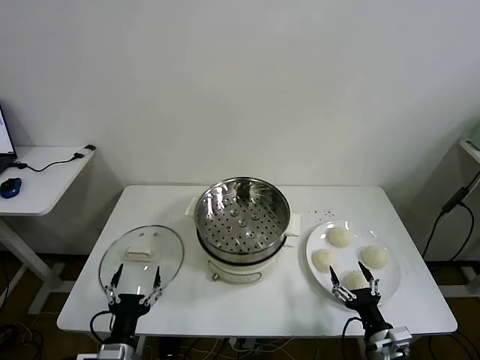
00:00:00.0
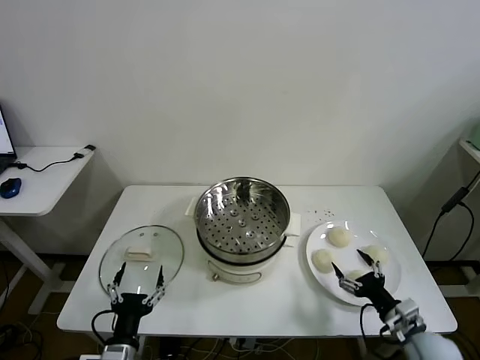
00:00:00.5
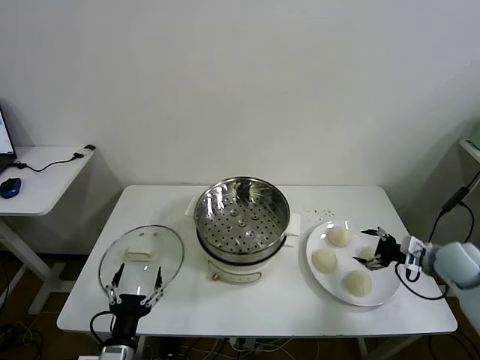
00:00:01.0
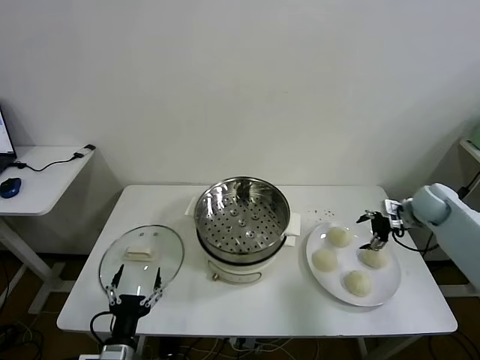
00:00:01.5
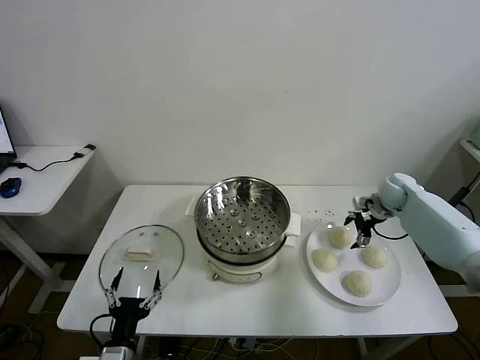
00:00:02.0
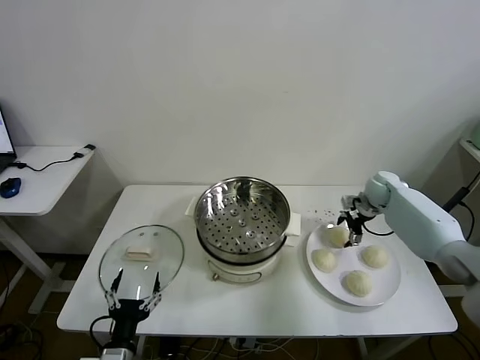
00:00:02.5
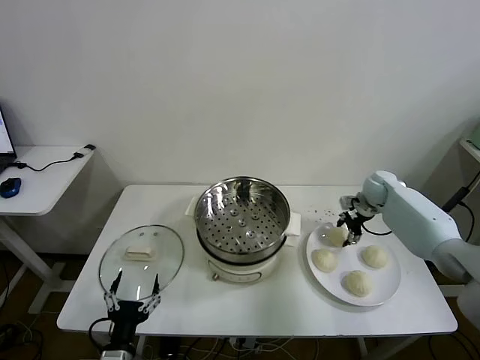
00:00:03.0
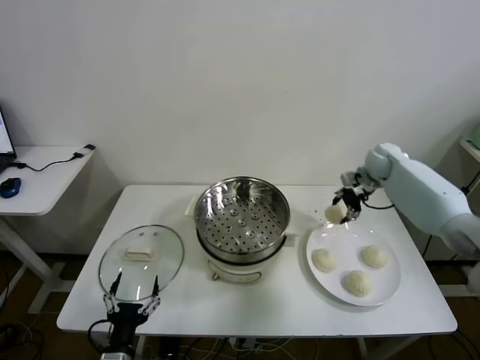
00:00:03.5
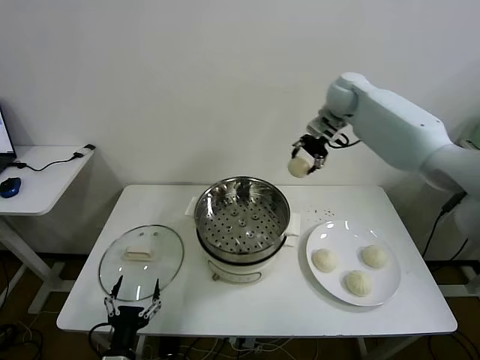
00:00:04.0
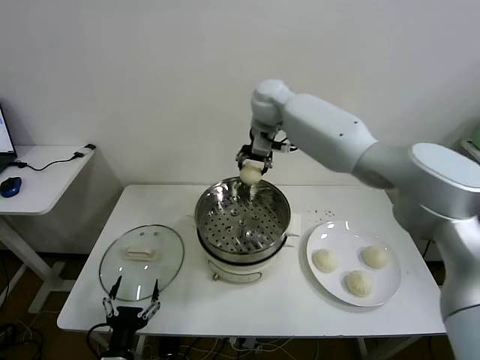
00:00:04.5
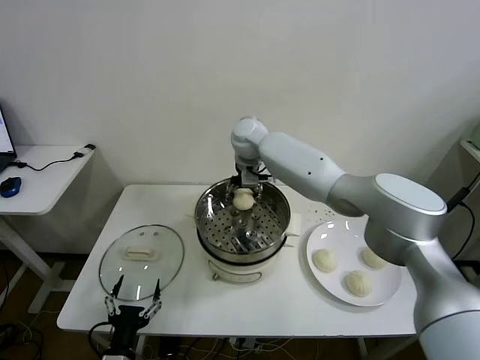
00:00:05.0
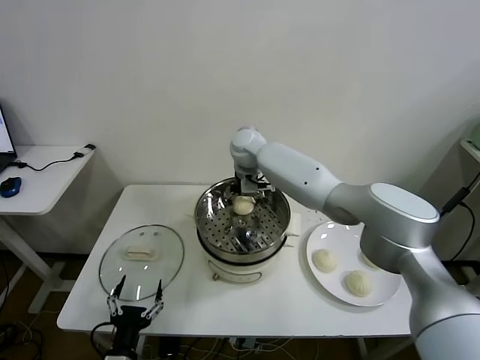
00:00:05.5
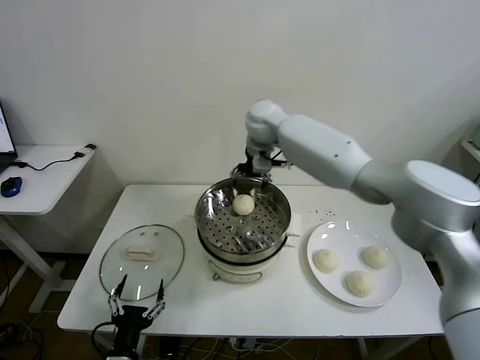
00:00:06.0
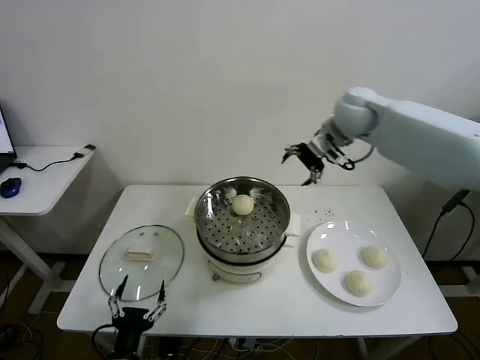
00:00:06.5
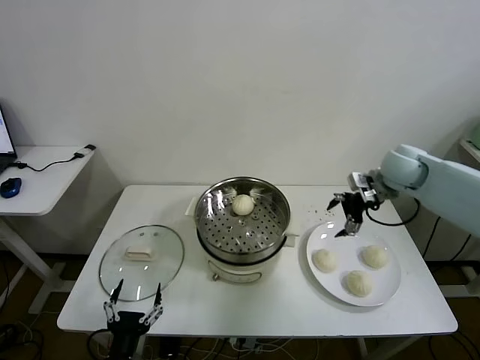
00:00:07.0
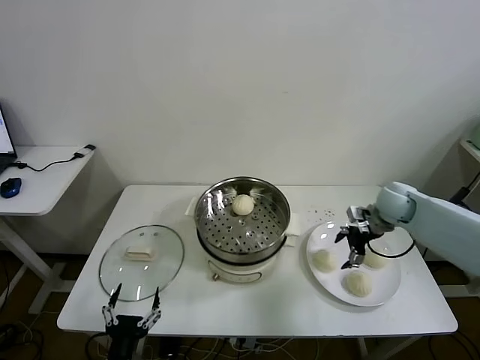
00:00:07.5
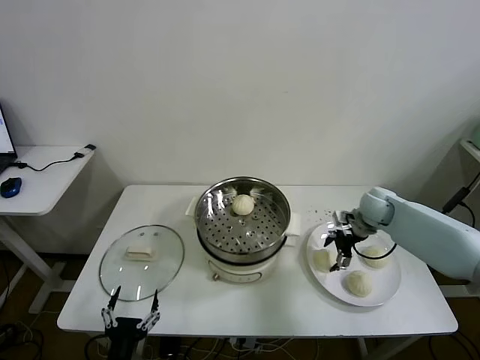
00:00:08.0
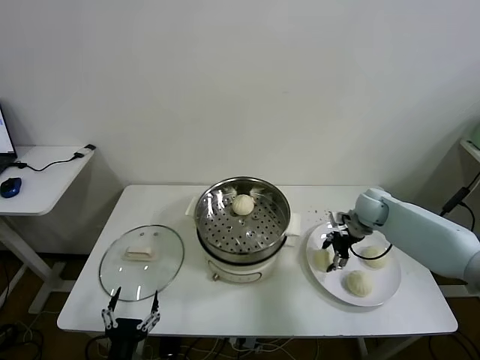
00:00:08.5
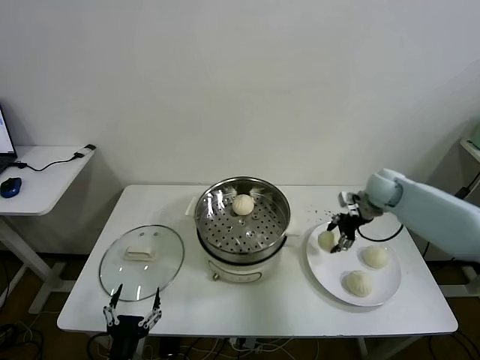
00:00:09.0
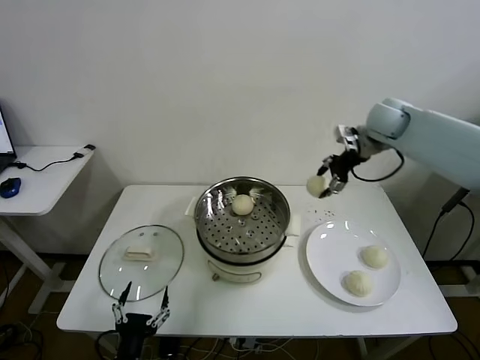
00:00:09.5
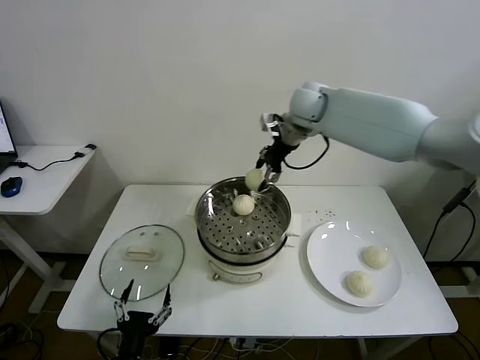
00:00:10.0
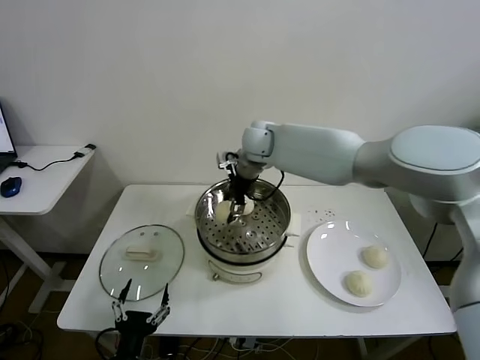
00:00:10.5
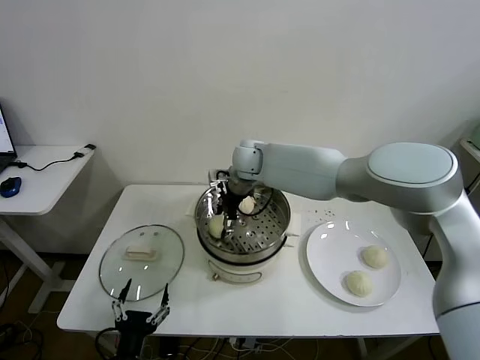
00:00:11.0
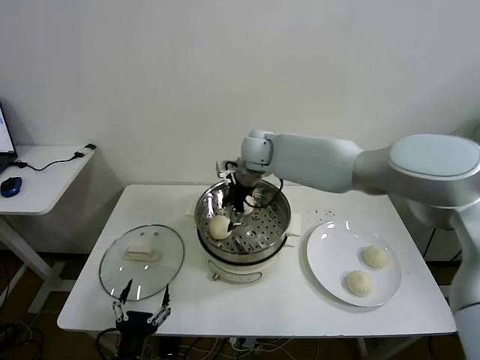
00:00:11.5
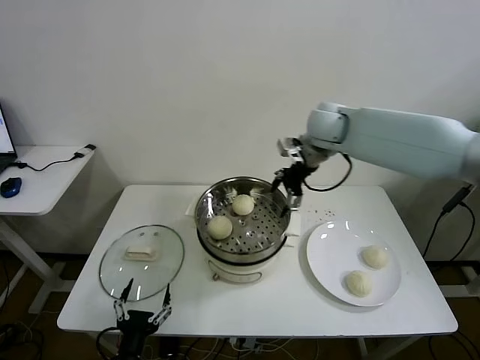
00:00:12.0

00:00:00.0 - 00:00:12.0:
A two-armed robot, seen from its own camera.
Task of the whole recording: take steamed baozi put them in steamer then cover it.
Step, 00:00:00.0 - 00:00:03.0: Grasp the baozi in the plate with right gripper.
Step, 00:00:03.5 - 00:00:05.5: Place the baozi on the steamer with right gripper.
Step, 00:00:06.0 - 00:00:08.5: Grasp the baozi in the plate with right gripper.
Step, 00:00:09.0 - 00:00:11.0: Place the baozi on the steamer with right gripper.
00:00:02.0 - 00:00:04.0: The right gripper heads upward and to the left, covering roughly 35 cm, and closes.
00:00:04.0 - 00:00:06.0: The right gripper goes roughly 10 cm to the left, and opens.
00:00:06.0 - 00:00:08.0: The right gripper shifts roughly 35 cm to the right and downward.
00:00:08.0 - 00:00:10.0: The right gripper heads upward and to the left, covering some 35 cm, and closes.
00:00:10.0 - 00:00:12.0: The right gripper heads to the right and backward, covering roughly 10 cm, and opens its fingers.

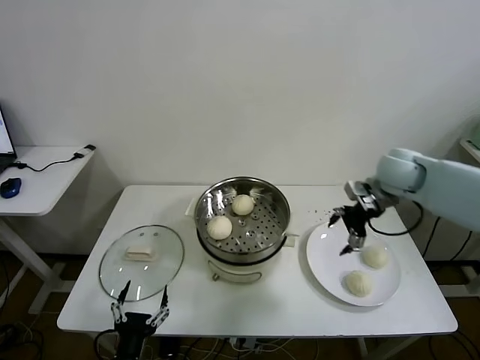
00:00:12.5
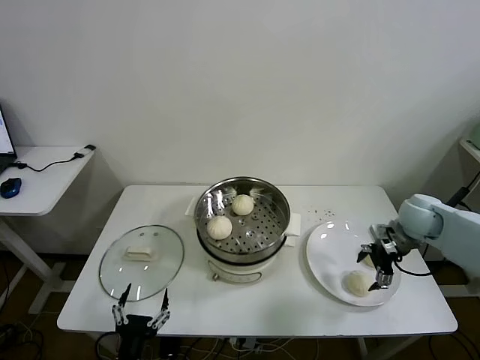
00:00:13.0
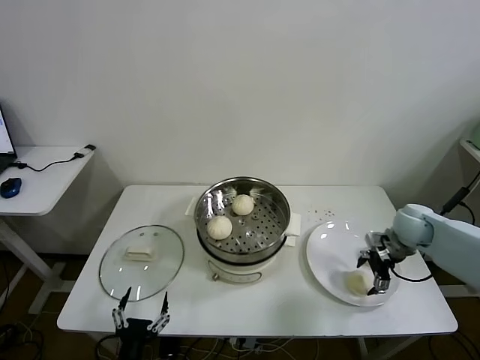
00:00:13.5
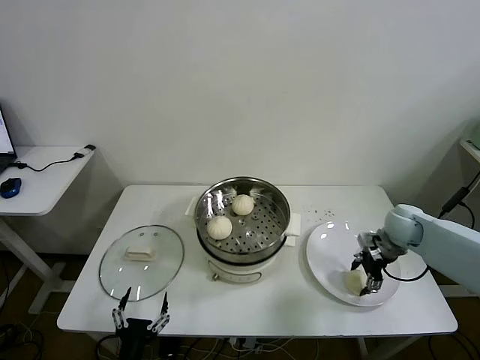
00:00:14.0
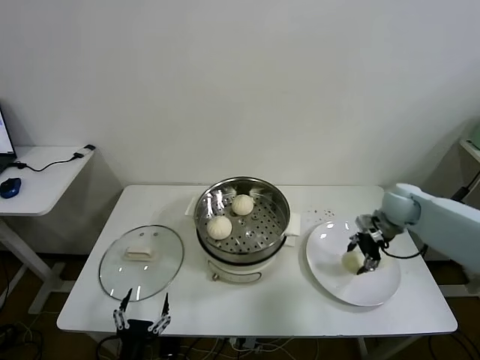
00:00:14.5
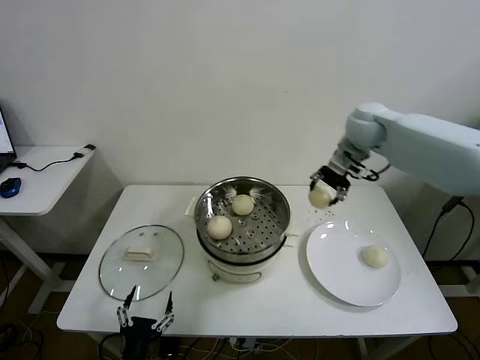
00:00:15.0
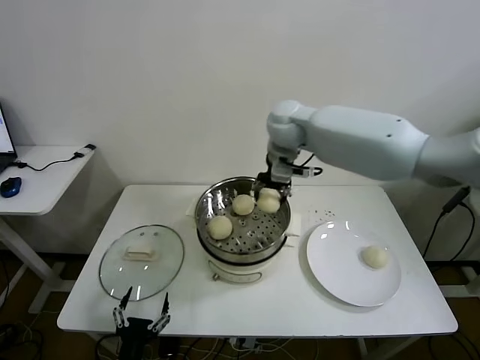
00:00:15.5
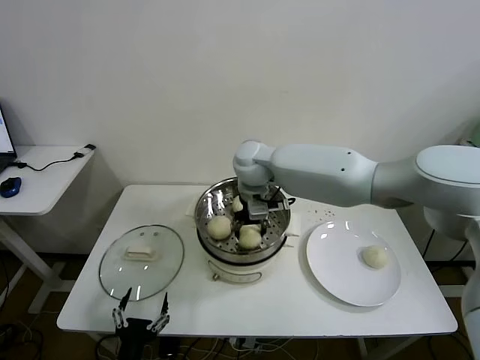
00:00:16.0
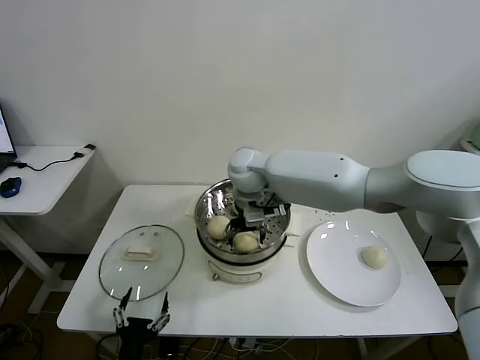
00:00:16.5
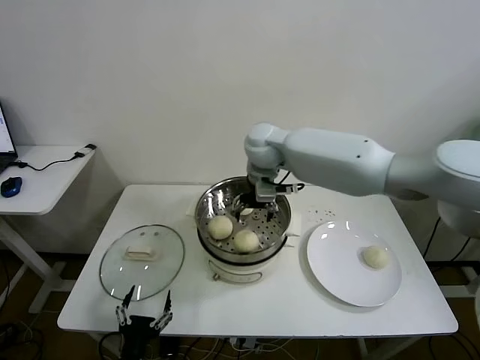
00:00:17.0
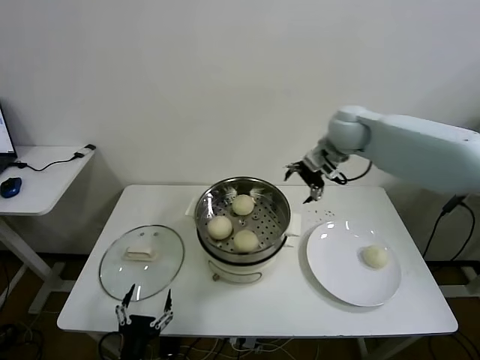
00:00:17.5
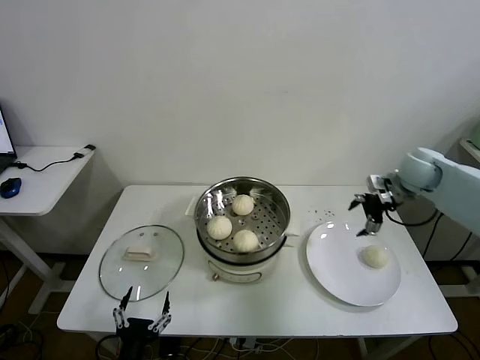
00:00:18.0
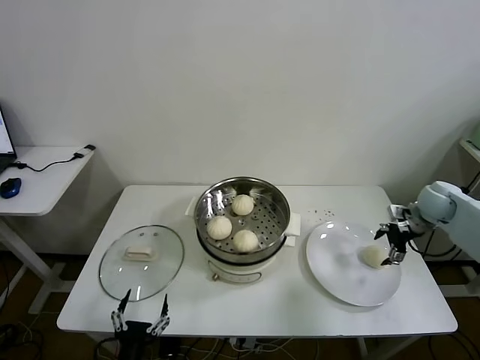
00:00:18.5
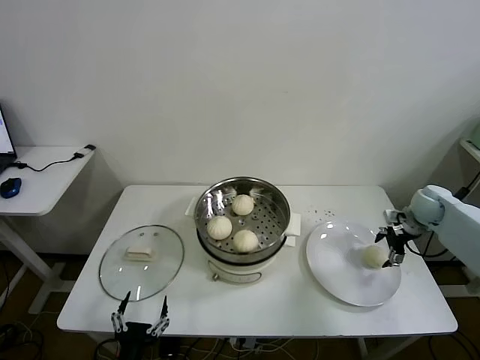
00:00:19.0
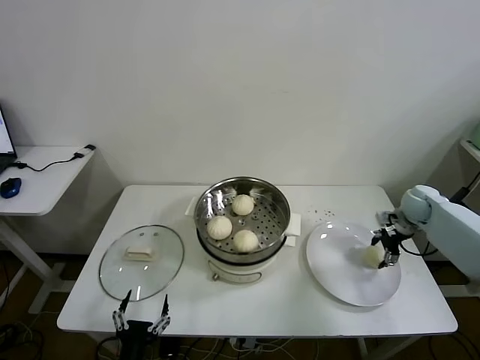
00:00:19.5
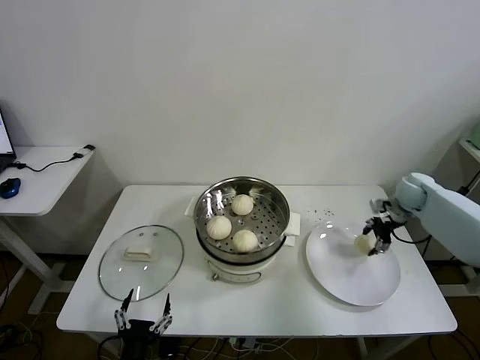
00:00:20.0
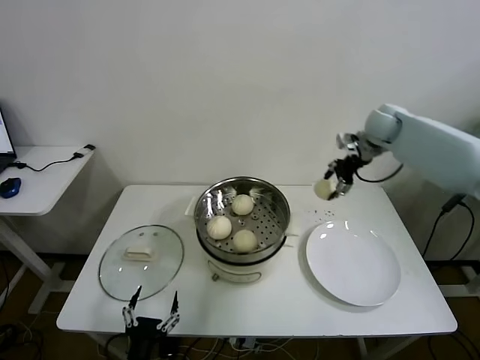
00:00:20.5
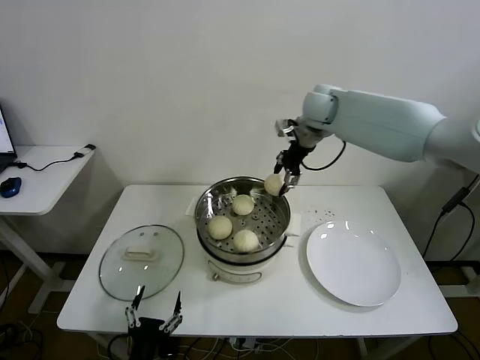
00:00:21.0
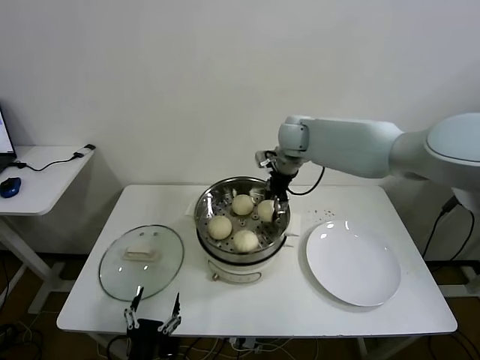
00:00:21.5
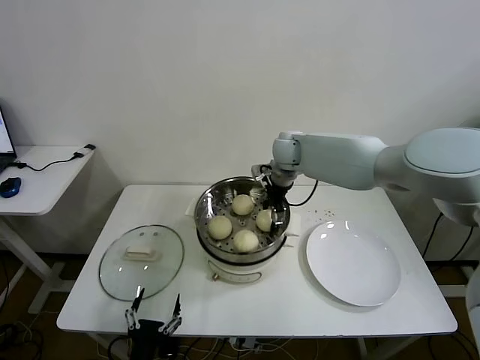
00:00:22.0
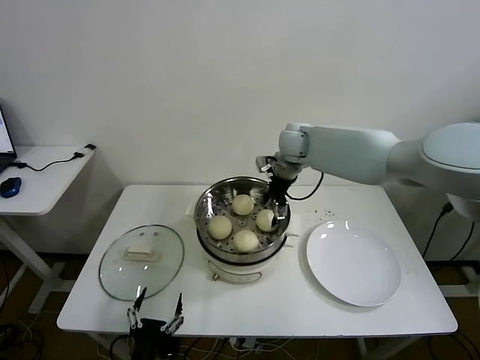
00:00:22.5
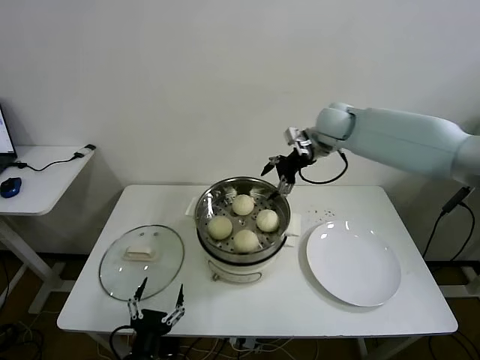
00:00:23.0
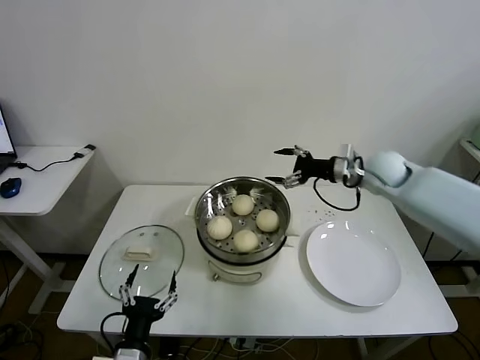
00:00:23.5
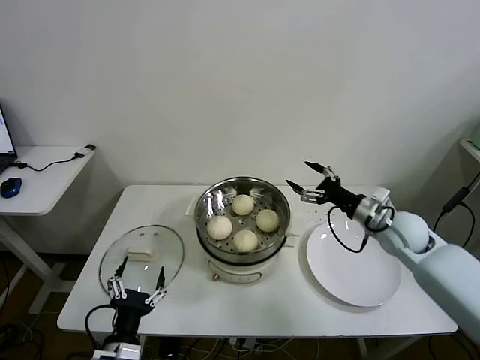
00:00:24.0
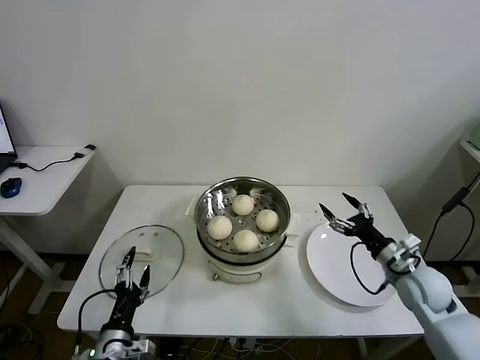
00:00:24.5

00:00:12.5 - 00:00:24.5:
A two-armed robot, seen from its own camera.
Task of the whole recording: take steamed baozi put them in steamer then cover it.
Step, 00:00:14.5 - 00:00:17.0: Place the baozi on the steamer with right gripper.
Step, 00:00:17.5 - 00:00:19.5: Grasp the baozi in the plate with right gripper.
Step, 00:00:20.0 - 00:00:22.5: Place the baozi on the steamer with right gripper.
00:00:12.5 - 00:00:14.5: The right gripper shifts some 10 cm downward, and closes up.
00:00:14.5 - 00:00:16.5: The right gripper shifts approximately 35 cm to the left, and opens.
00:00:16.5 - 00:00:18.5: The right gripper shifts roughly 50 cm to the right.
00:00:18.5 - 00:00:20.5: The right gripper heads upward, to the left and forward, covering about 25 cm, and closes.
00:00:20.5 - 00:00:22.5: The right gripper heads to the left, covering approximately 20 cm, and opens.
00:00:22.5 - 00:00:24.5: The right gripper moves backward, to the right and downward, roughly 40 cm; the left gripper travels forward and to the left by approximately 10 cm.

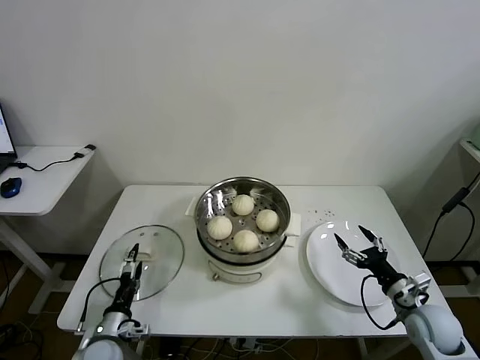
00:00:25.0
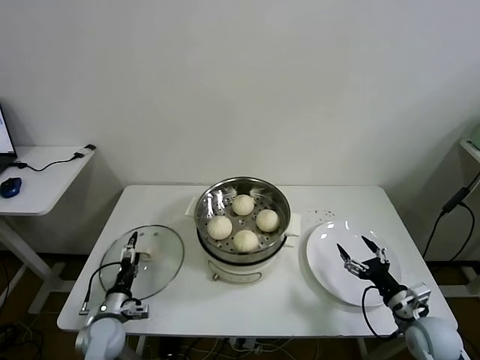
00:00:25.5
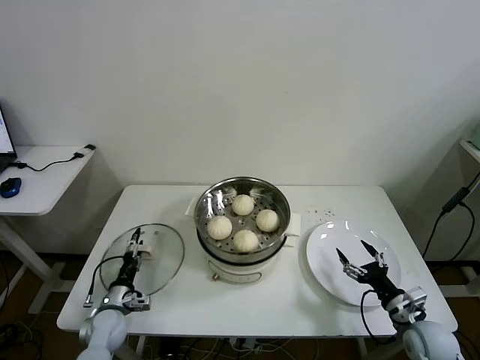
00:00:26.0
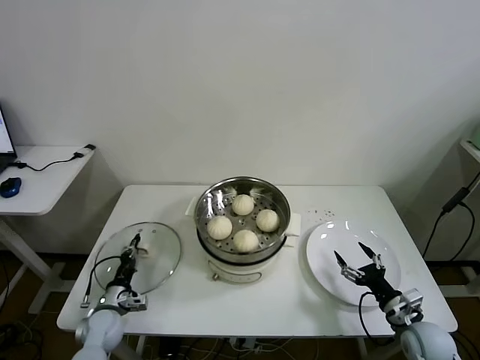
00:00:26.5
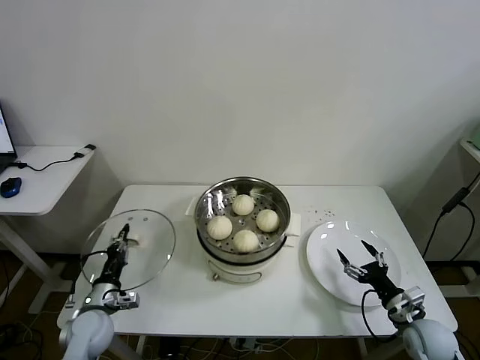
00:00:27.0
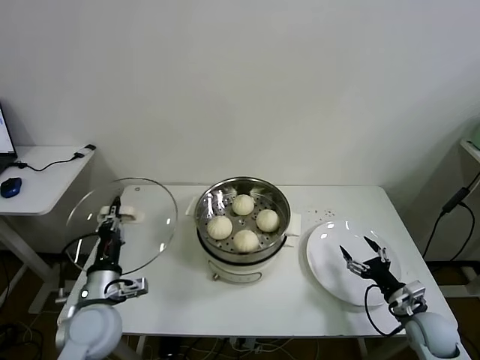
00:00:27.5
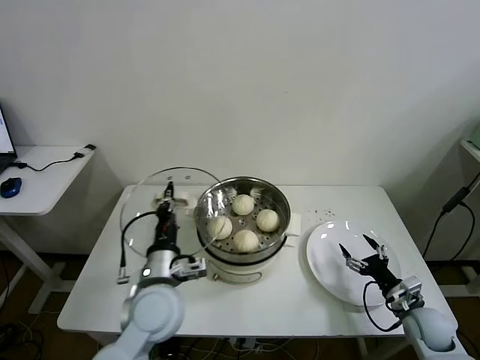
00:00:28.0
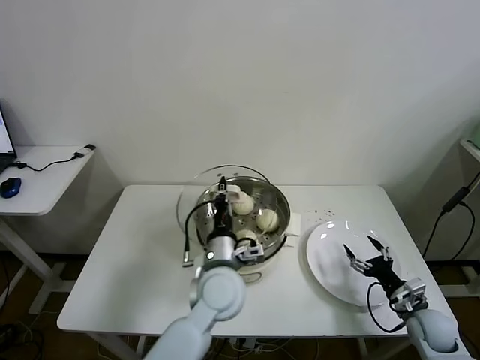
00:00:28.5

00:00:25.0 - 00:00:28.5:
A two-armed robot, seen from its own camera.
Task of the whole recording: take steamed baozi put them in steamer then cover it.
00:00:25.0 - 00:00:27.0: The right gripper shifts by some 5 cm; the left gripper goes some 5 cm forward, and closes up.
00:00:27.0 - 00:00:28.5: The left gripper moves to the right and upward, approximately 35 cm.
